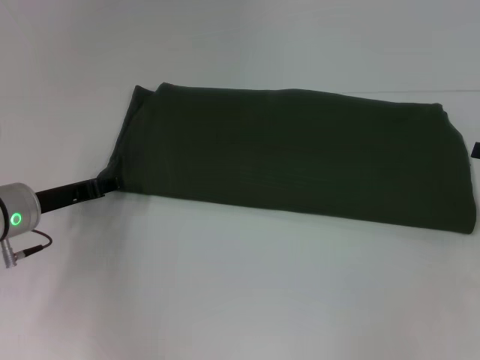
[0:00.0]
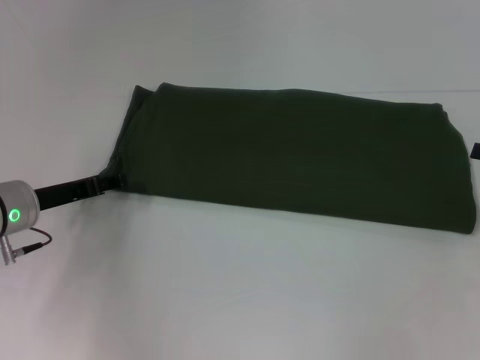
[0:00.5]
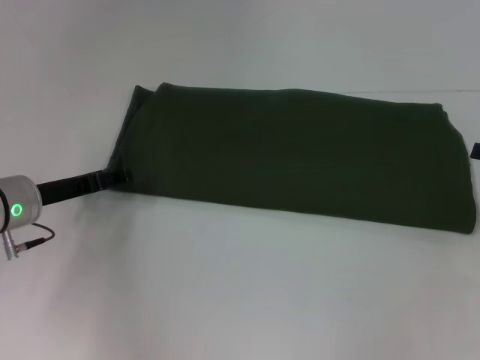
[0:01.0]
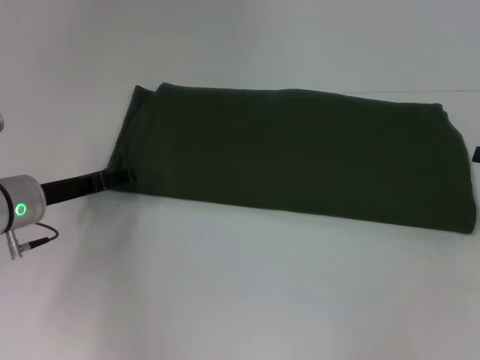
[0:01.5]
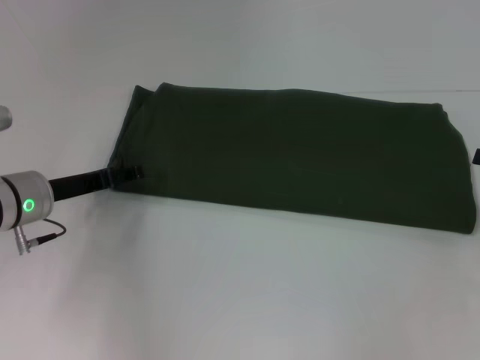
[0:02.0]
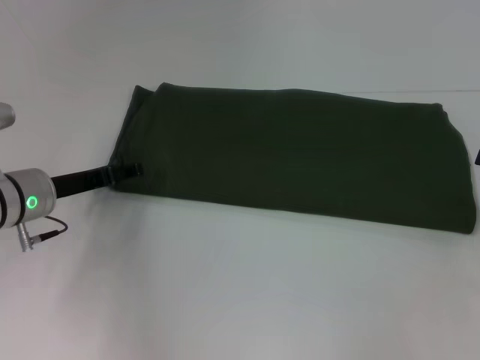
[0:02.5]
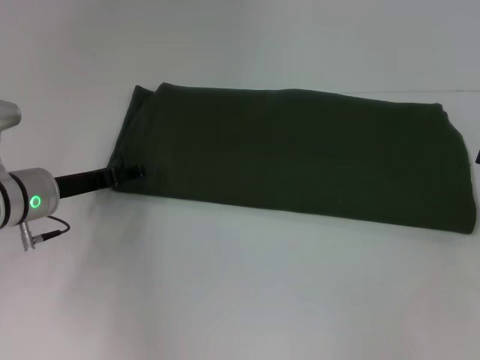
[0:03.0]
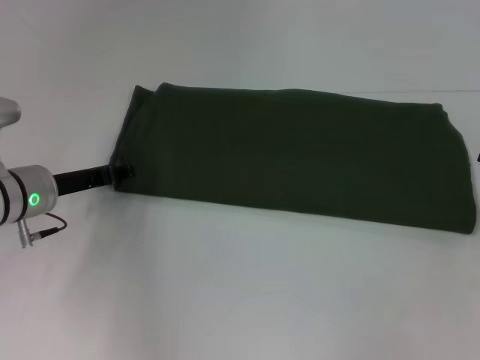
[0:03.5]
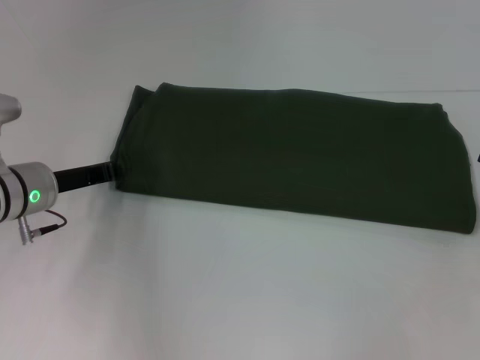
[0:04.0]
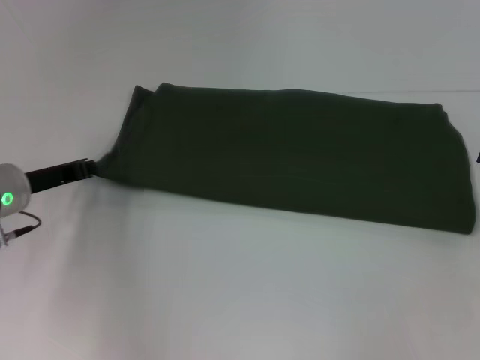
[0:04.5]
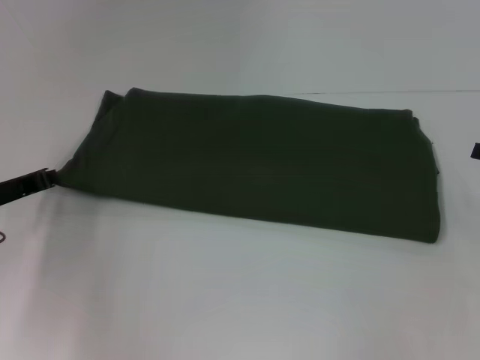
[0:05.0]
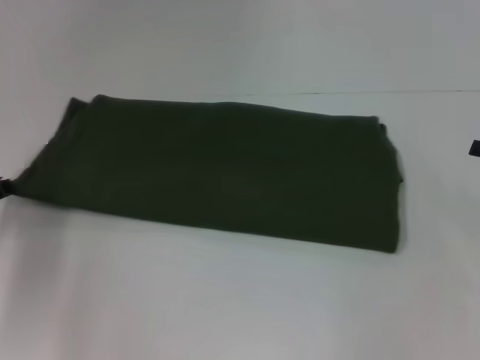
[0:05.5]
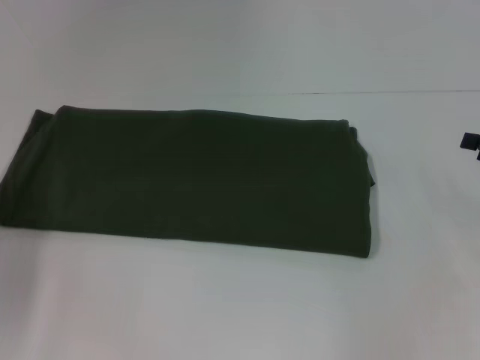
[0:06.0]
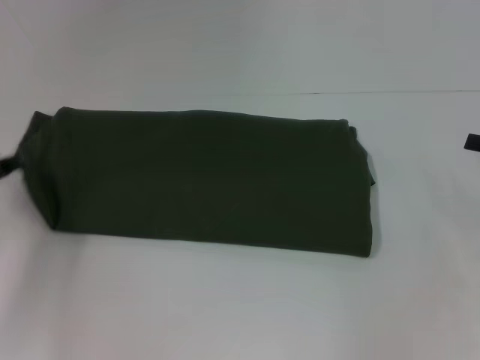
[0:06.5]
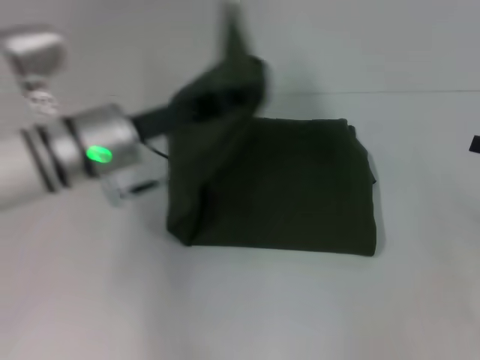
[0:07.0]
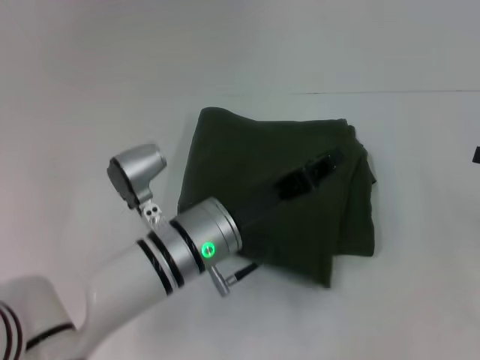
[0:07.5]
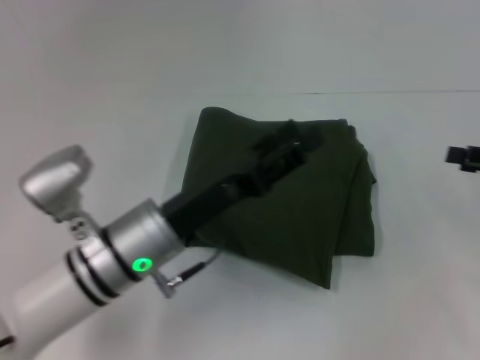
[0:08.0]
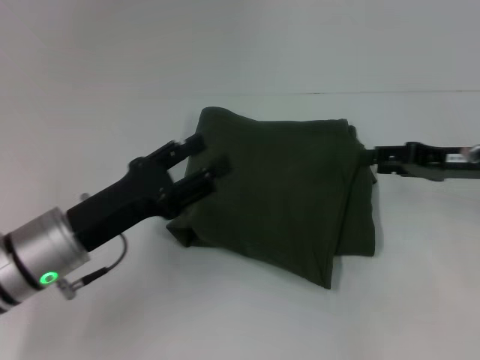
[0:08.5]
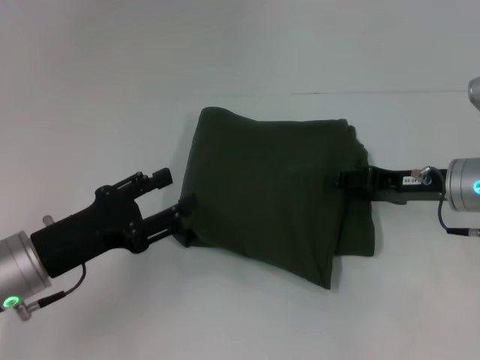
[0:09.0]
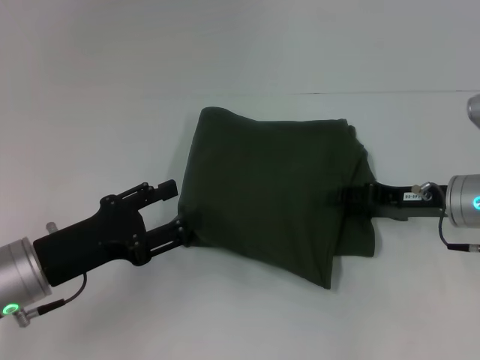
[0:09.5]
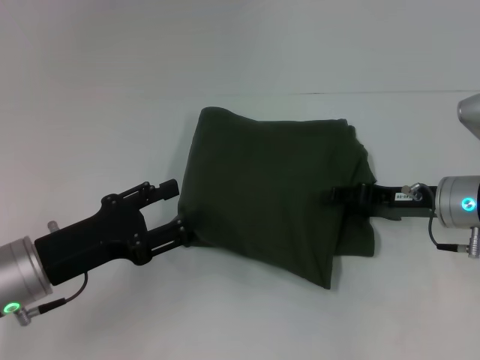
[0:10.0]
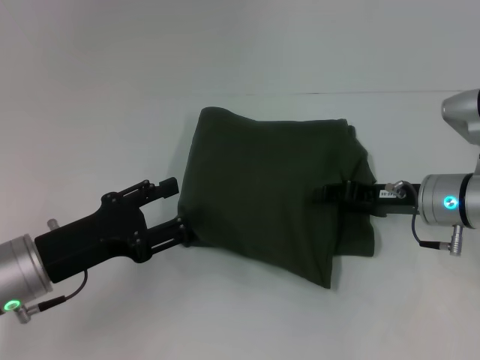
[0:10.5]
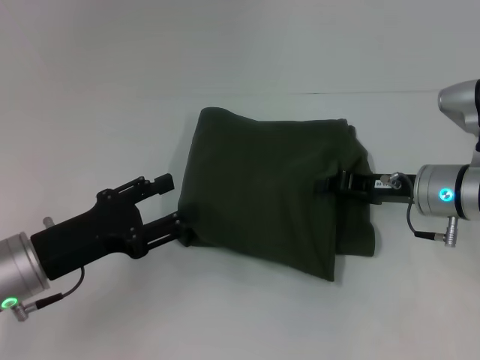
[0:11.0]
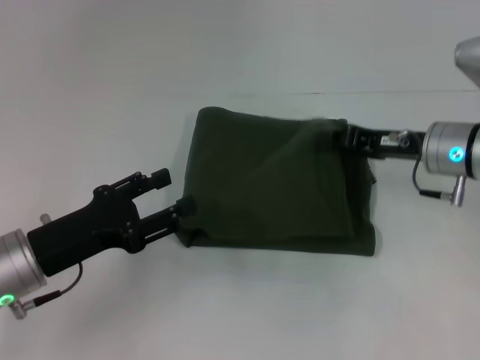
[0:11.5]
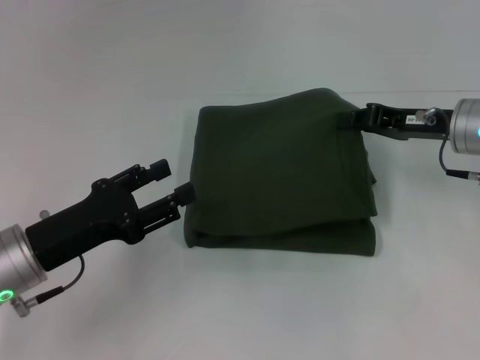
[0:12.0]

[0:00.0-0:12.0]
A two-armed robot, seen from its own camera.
Step, 0:00.0 to 0:08.0: Fold the clothes with your left hand.
0:00.0 to 0:02.0: The grippers make only small movements.
0:02.0 to 0:04.0: The left gripper closes its fingers.
0:04.0 to 0:06.0: The left gripper travels to the left and backward by roughly 15 cm.
0:06.0 to 0:08.0: The left gripper shifts some 25 cm to the right, and opens.
0:08.0 to 0:10.0: The left gripper shifts roughly 10 cm to the left; the right gripper heads to the left and downward, covering some 15 cm.
0:10.0 to 0:12.0: The right gripper heads upward, covering about 5 cm, and closes its fingers.

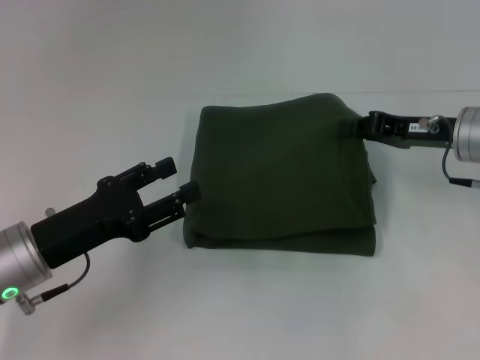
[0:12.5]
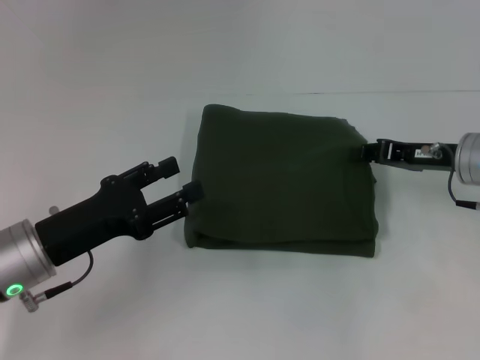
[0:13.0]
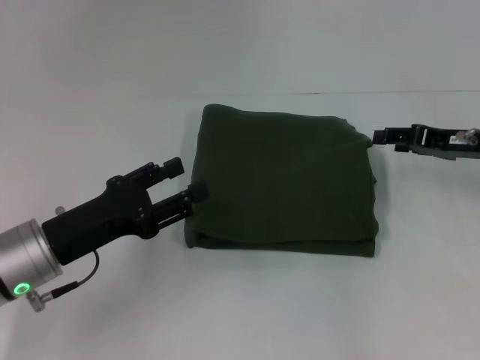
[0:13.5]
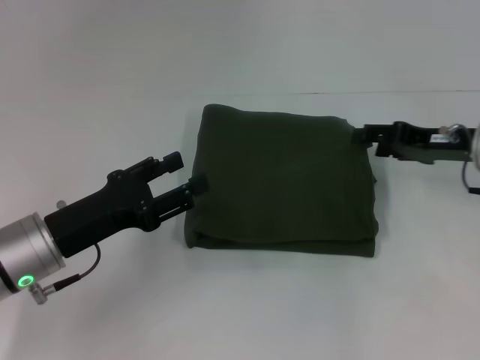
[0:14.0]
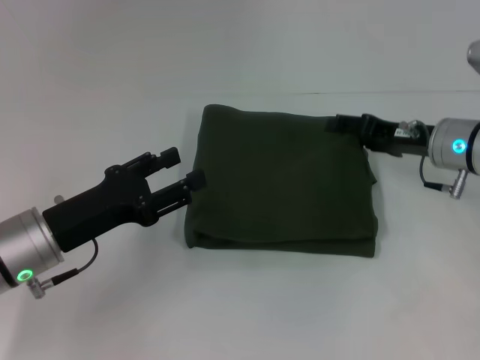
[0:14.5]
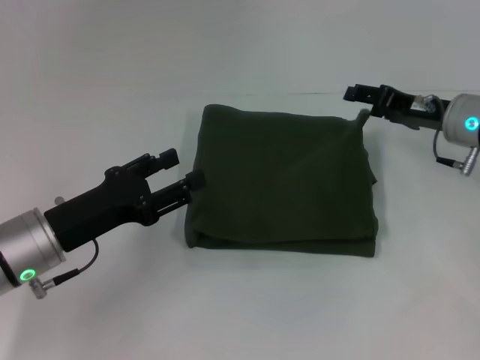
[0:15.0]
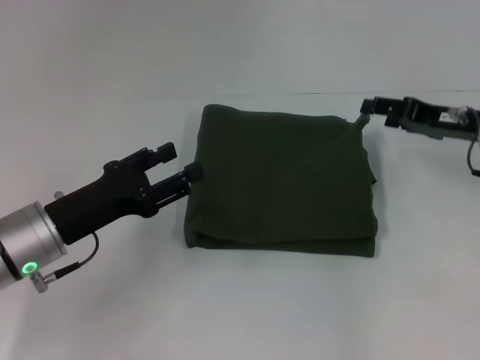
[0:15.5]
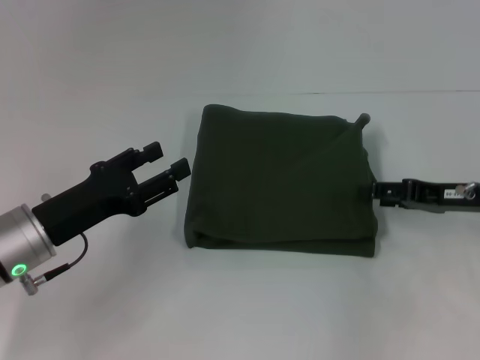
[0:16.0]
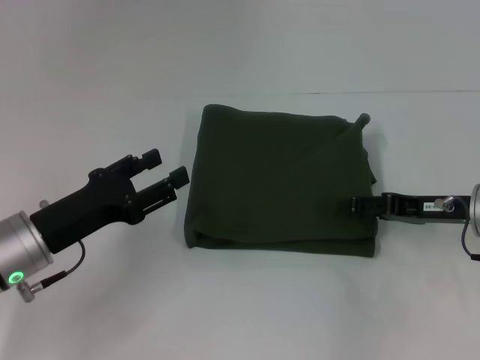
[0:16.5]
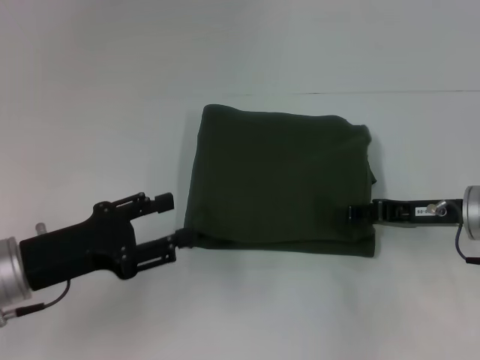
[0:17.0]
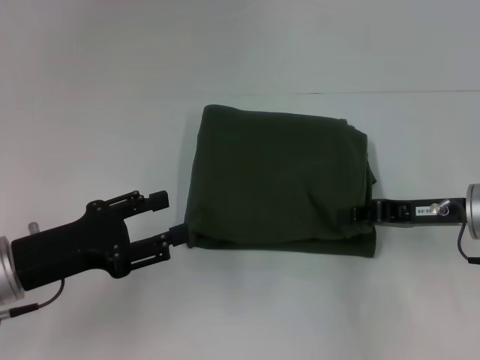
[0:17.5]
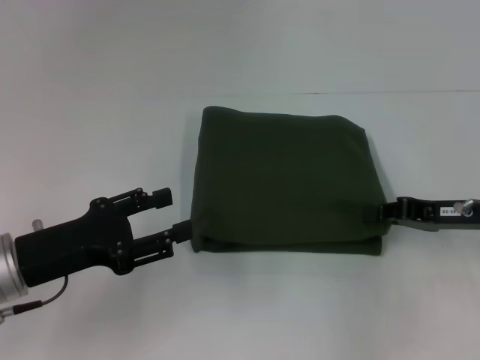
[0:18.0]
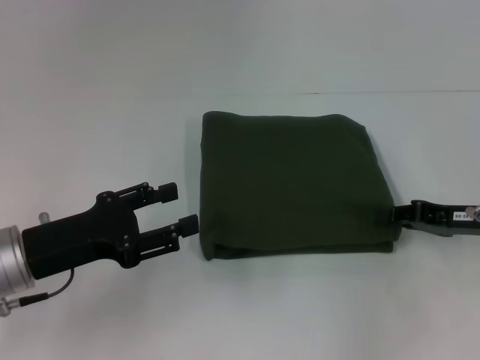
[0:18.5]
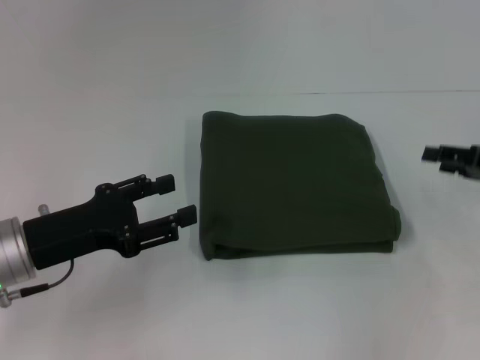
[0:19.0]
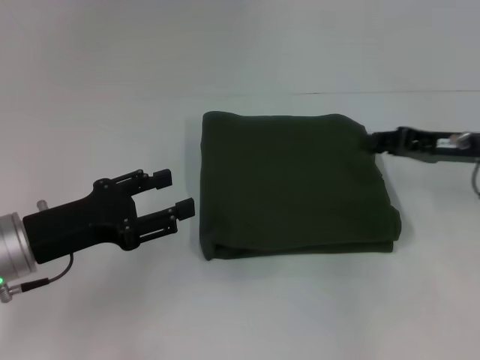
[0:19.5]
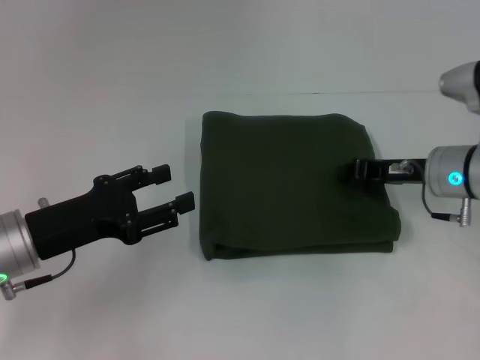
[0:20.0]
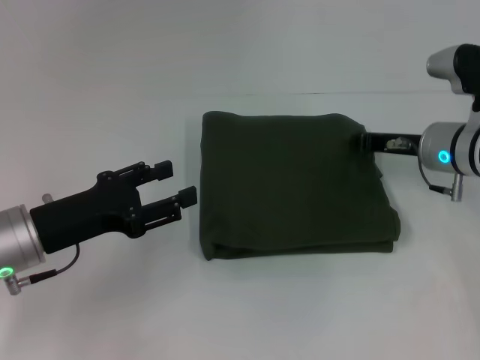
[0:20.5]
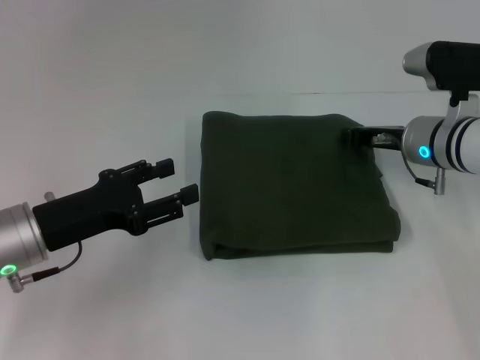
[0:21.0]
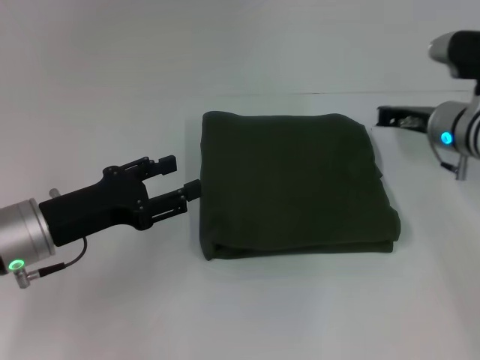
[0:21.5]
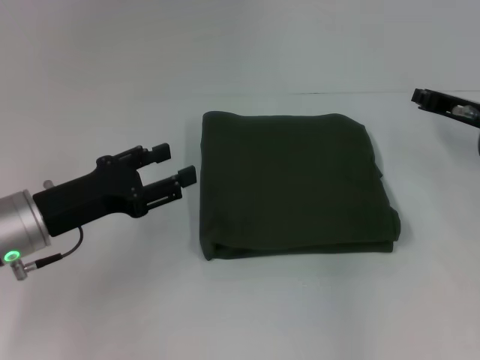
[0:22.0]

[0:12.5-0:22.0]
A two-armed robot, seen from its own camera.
0:12.5 to 0:14.5: The right gripper opens up.
0:14.5 to 0:16.5: The right gripper goes some 5 cm backward.
0:16.5 to 0:18.0: The right gripper closes.
0:18.0 to 0:20.0: The right gripper shifts about 5 cm to the left and forward, and opens, then closes again.
0:20.0 to 0:22.0: The right gripper travels to the right by about 5 cm.

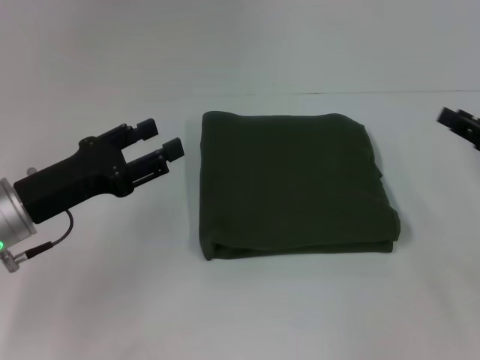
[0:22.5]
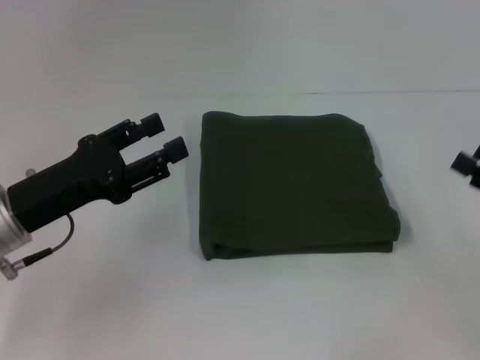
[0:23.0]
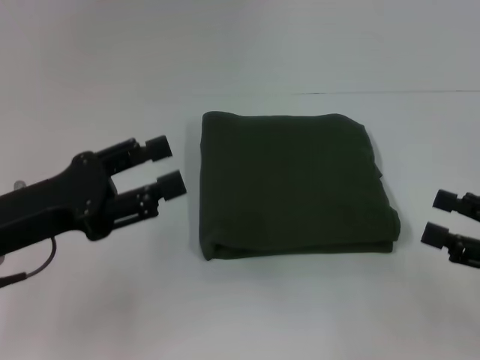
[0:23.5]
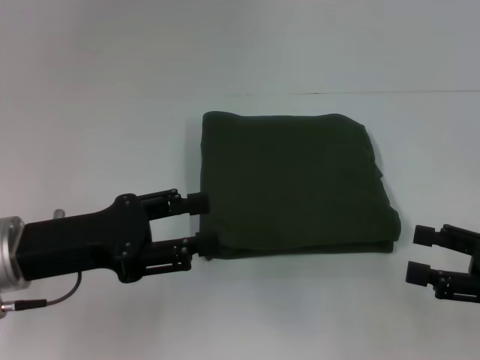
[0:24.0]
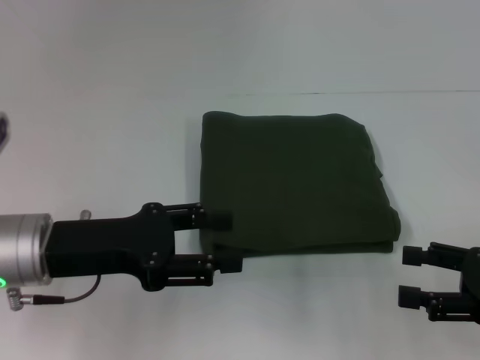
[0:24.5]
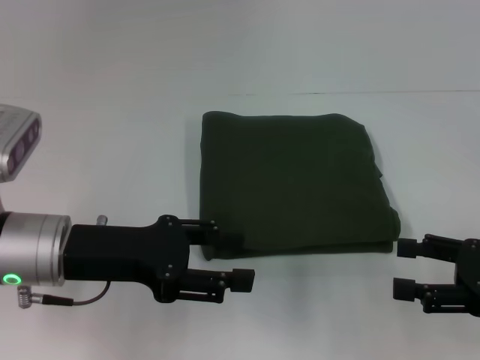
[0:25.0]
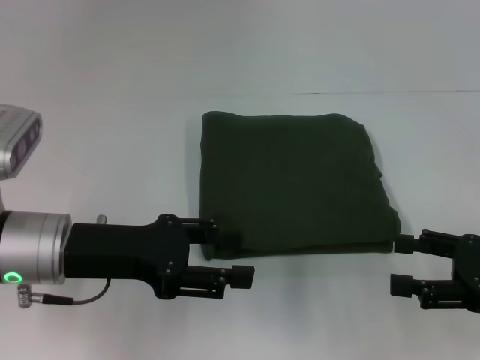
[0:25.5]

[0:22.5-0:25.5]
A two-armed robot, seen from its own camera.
0:22.5 to 0:24.0: The right gripper heads backward, covering about 10 cm, and opens its fingers.
0:24.0 to 0:25.5: The grippers stay close to where they were, moving slightly.

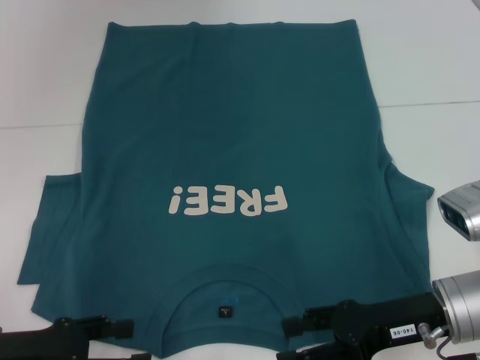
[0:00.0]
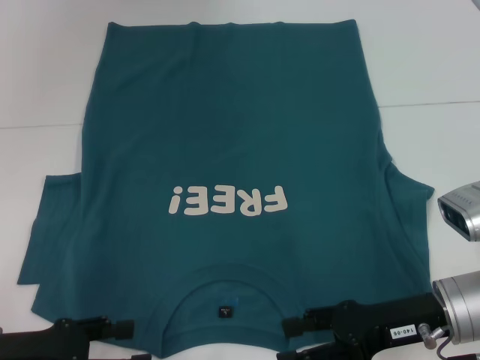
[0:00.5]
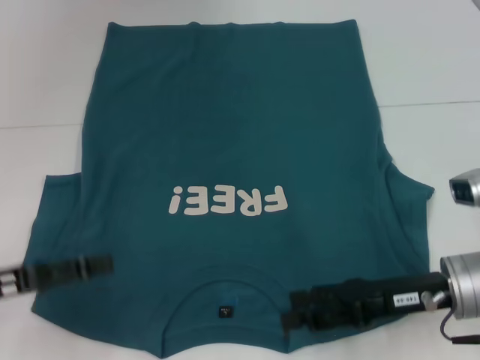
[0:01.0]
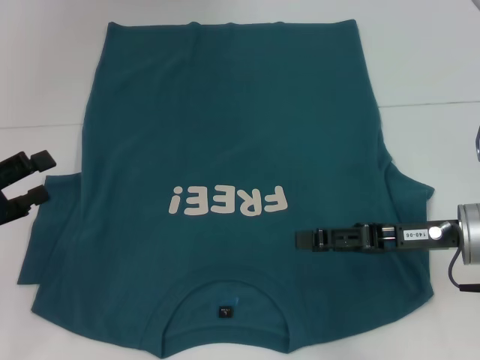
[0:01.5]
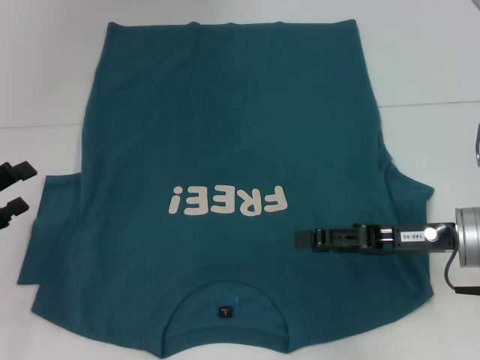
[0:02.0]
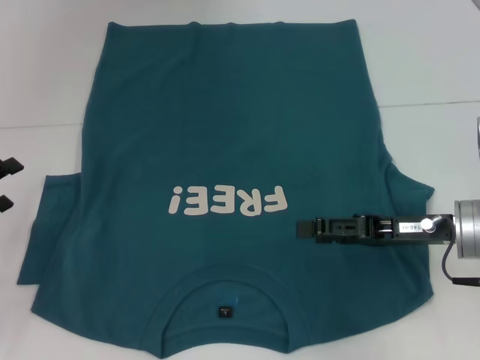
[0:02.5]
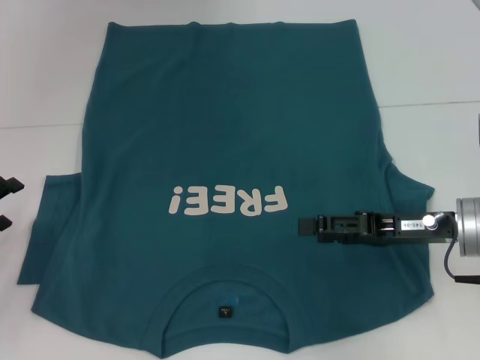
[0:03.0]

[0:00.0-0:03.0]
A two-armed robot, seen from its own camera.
0:00.0 to 0:01.5: The right gripper ends up about 5 cm from where it was. Meanwhile the left gripper travels to the left and forward by some 10 cm.
0:01.5 to 0:03.0: The left gripper moves downward, approximately 5 cm.
